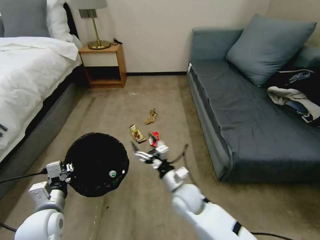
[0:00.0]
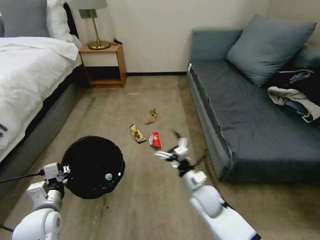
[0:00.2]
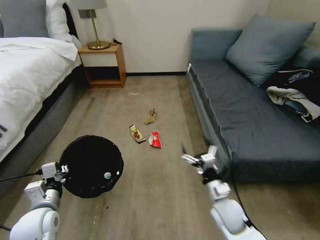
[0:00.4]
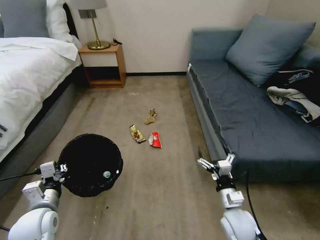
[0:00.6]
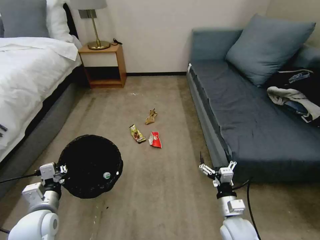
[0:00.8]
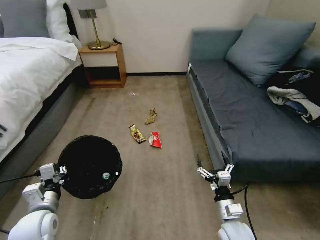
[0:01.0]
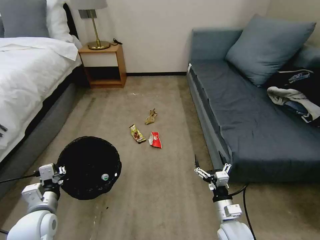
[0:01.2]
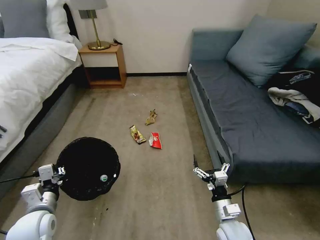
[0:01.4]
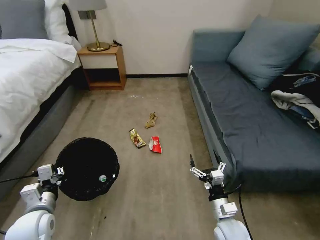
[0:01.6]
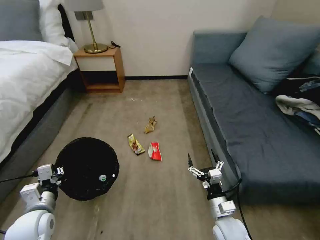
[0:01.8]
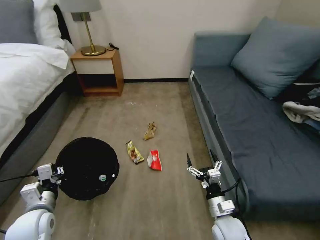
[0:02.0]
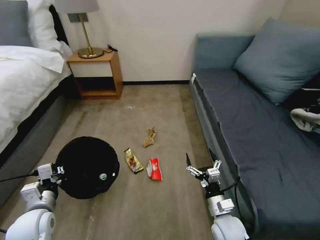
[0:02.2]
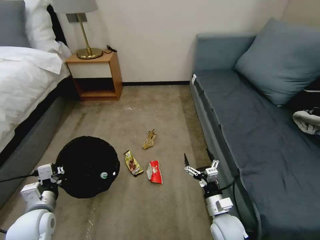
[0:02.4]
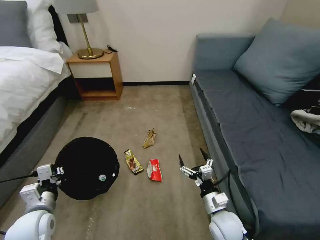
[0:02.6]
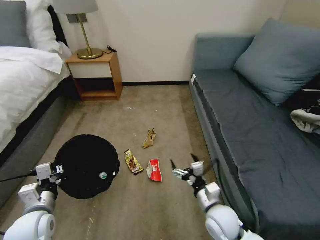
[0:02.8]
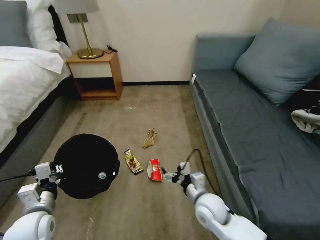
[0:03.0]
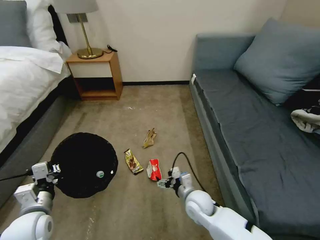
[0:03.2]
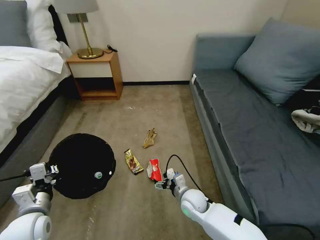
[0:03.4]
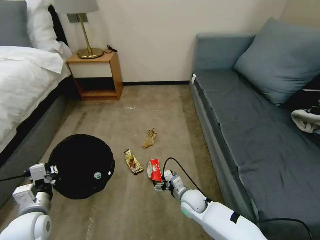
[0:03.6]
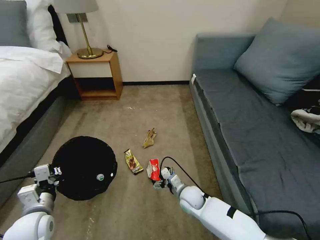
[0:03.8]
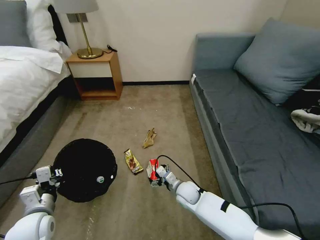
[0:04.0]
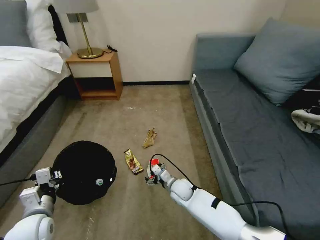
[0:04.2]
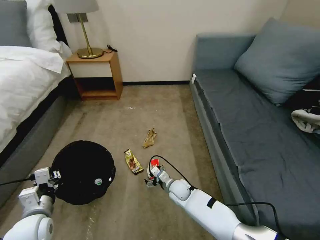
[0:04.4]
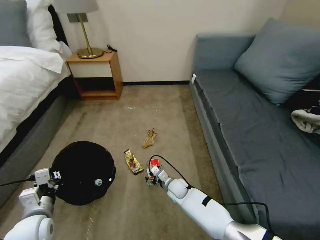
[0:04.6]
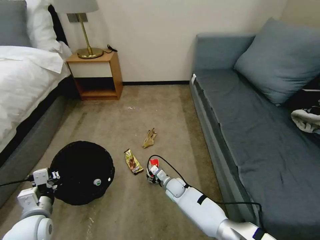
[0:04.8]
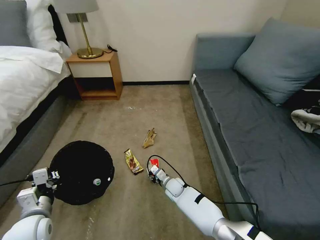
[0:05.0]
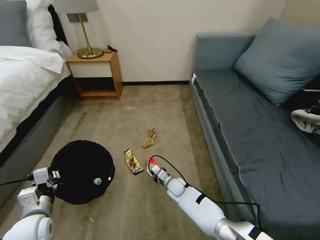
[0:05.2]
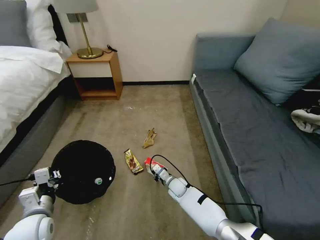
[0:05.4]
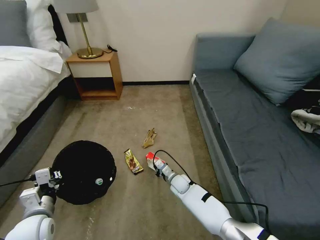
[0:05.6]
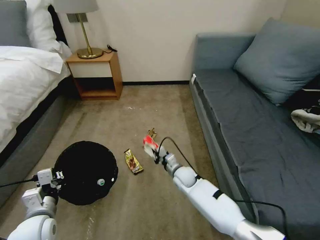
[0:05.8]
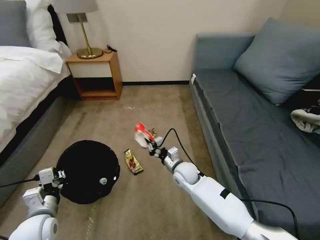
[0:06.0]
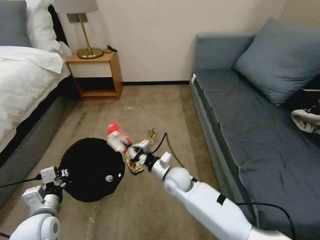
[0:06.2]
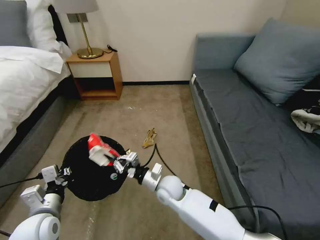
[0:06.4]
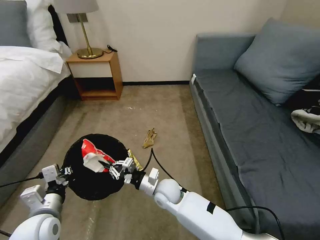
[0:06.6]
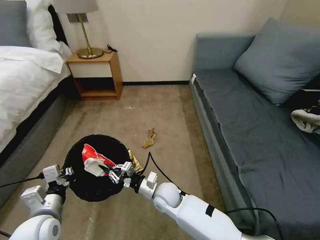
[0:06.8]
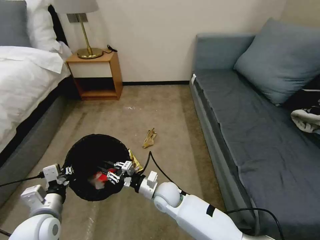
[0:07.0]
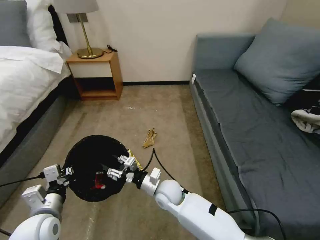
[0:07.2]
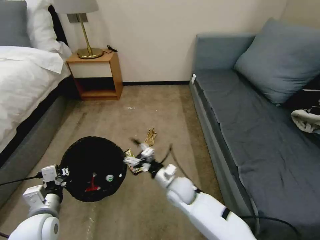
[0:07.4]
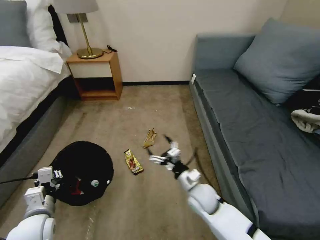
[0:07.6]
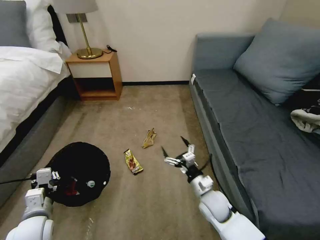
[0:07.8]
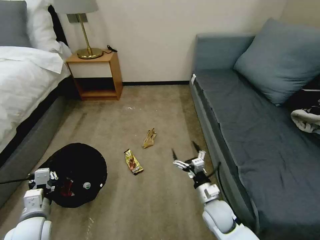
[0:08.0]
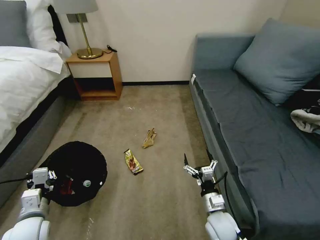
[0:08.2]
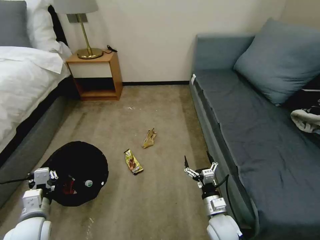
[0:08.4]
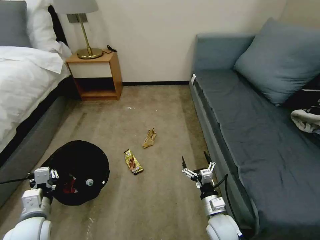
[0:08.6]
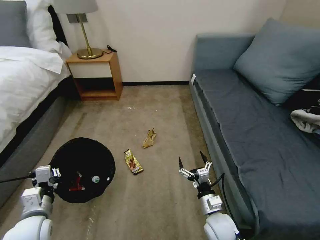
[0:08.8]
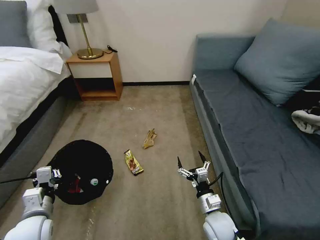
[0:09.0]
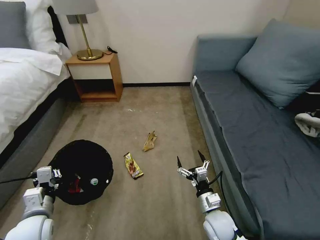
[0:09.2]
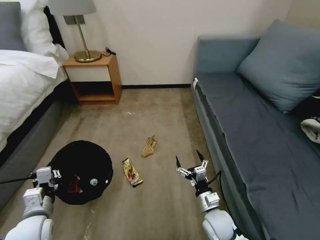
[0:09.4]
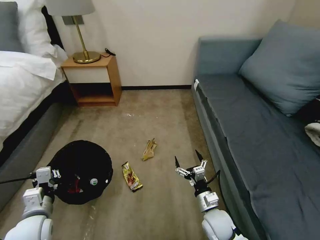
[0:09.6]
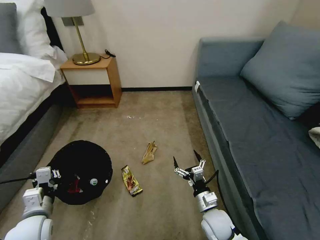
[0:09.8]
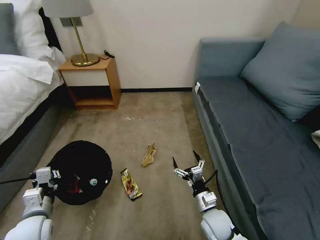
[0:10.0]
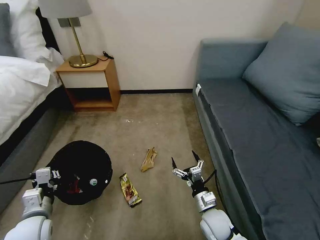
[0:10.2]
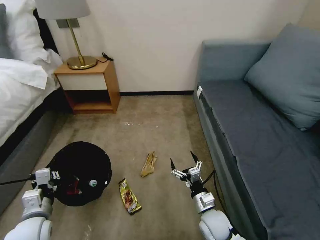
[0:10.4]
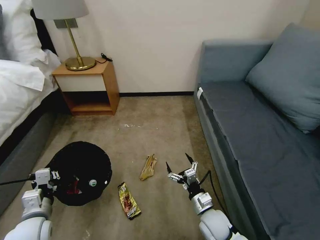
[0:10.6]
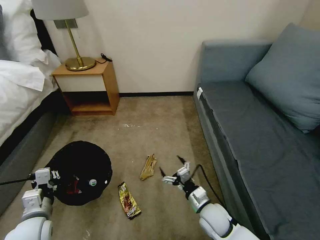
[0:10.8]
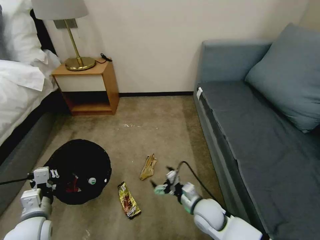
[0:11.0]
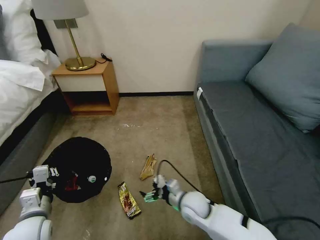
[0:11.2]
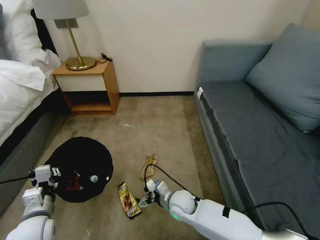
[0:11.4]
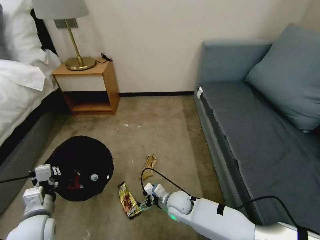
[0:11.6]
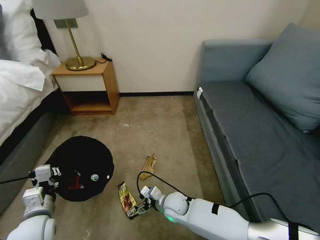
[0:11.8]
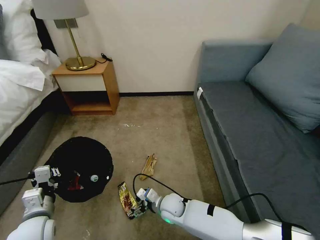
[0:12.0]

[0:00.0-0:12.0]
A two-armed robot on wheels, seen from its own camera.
Task of the whole recording: Pick up the trash bin, then pick up the garbage on the floor and place it into the trash bin.
0:00.0 to 0:01.6: The right gripper is displaced to the right and backward by about 15 cm.
0:01.6 to 0:03.0: The right gripper heads to the left, forward and upward, covering some 10 cm.
0:03.0 to 0:04.4: The right gripper is displaced downward, forward and to the left by roughly 20 cm.
0:04.4 to 0:06.0: The right gripper shifts approximately 10 cm upward, and closes.
0:06.0 to 0:07.6: The right gripper travels backward by roughly 10 cm, goes to the left and returns, roughly 10 cm each way, and opens.
0:07.6 to 0:09.0: The right gripper goes roughly 10 cm backward, to the right and downward.
0:10.4 to 0:12.0: The right gripper travels to the left and forward by approximately 15 cm.

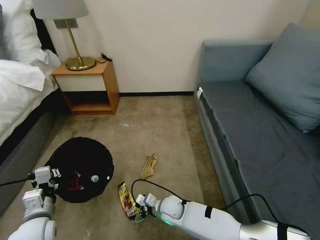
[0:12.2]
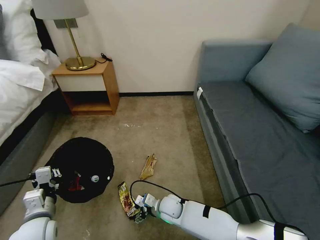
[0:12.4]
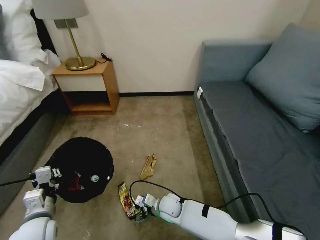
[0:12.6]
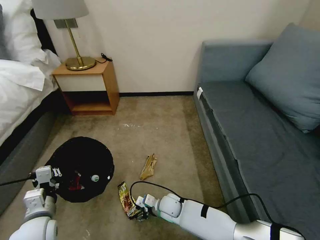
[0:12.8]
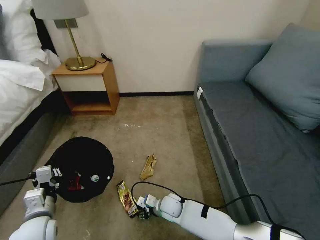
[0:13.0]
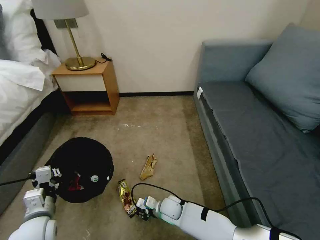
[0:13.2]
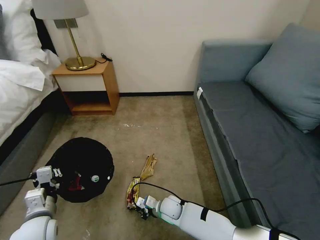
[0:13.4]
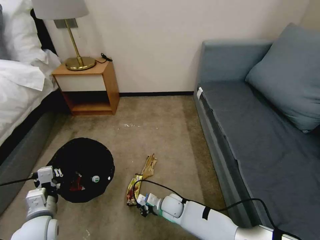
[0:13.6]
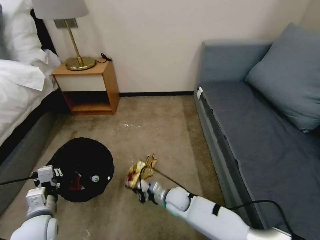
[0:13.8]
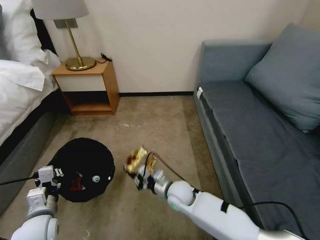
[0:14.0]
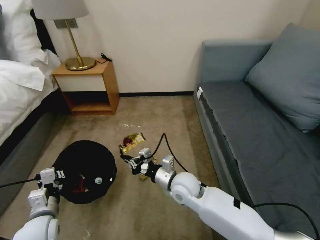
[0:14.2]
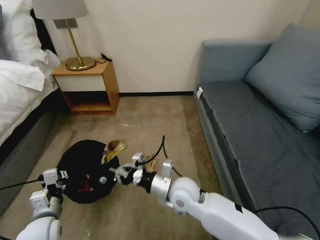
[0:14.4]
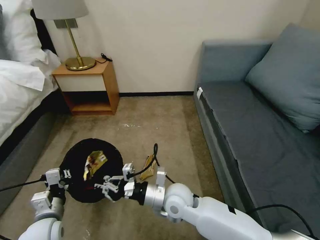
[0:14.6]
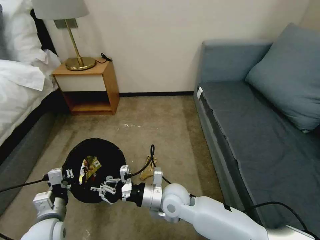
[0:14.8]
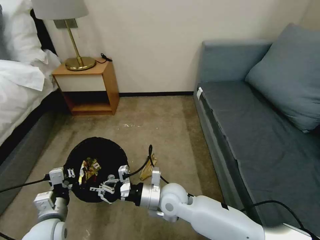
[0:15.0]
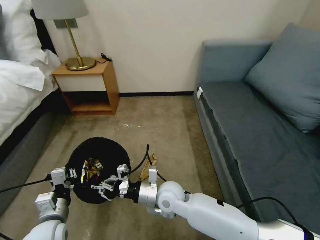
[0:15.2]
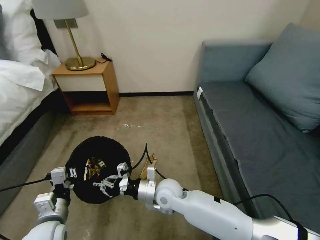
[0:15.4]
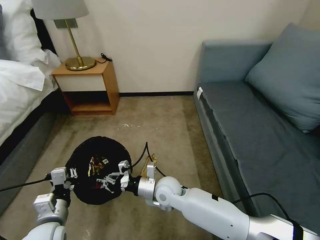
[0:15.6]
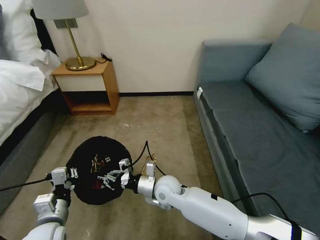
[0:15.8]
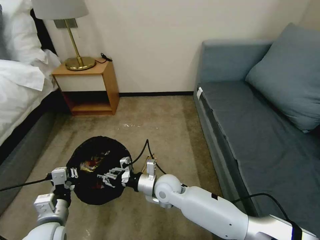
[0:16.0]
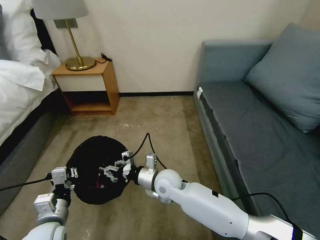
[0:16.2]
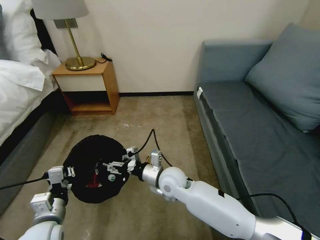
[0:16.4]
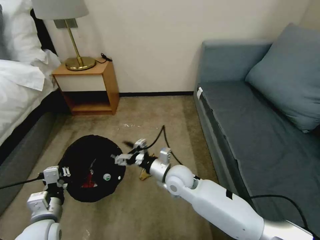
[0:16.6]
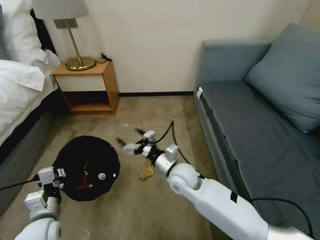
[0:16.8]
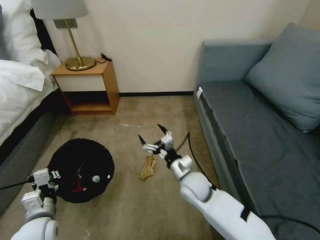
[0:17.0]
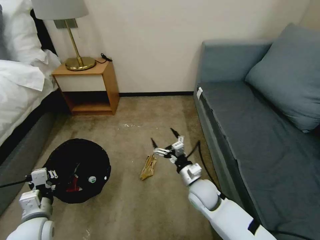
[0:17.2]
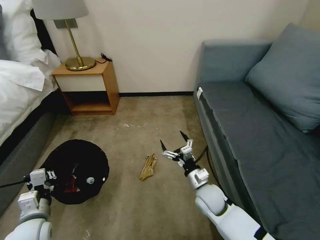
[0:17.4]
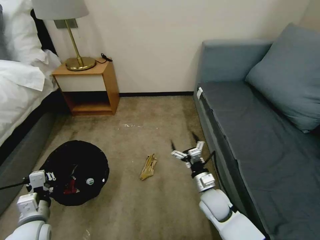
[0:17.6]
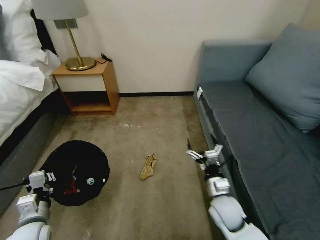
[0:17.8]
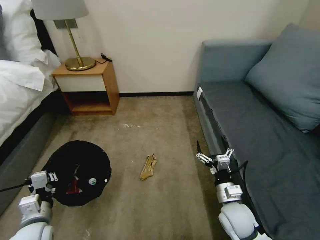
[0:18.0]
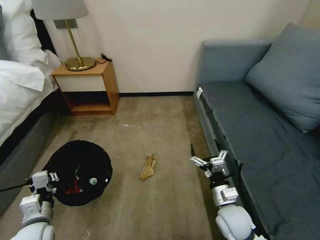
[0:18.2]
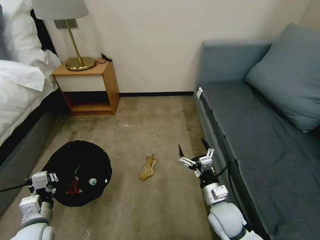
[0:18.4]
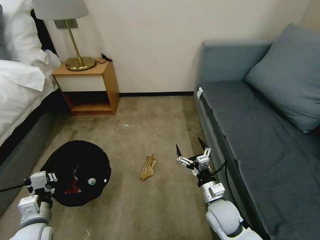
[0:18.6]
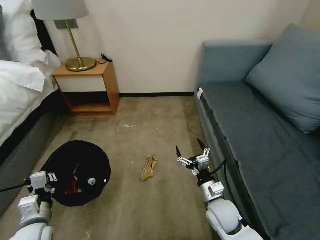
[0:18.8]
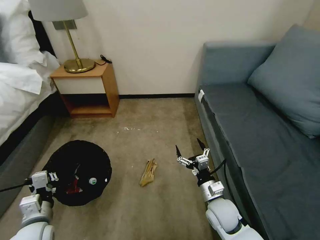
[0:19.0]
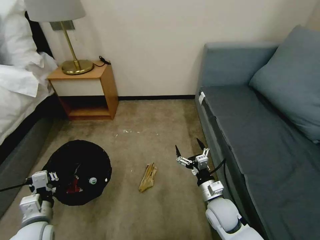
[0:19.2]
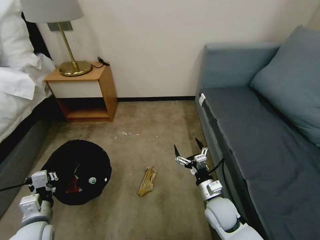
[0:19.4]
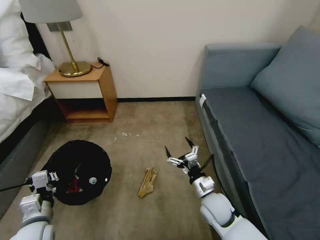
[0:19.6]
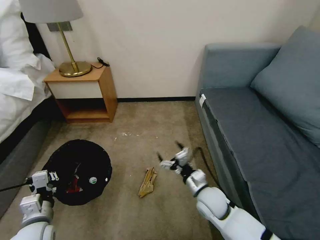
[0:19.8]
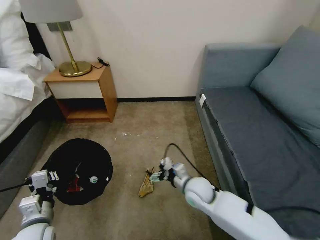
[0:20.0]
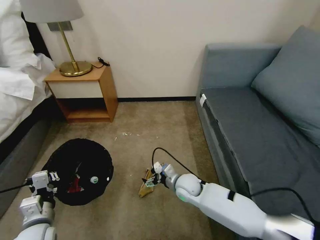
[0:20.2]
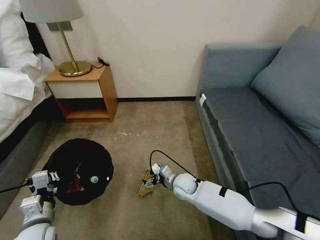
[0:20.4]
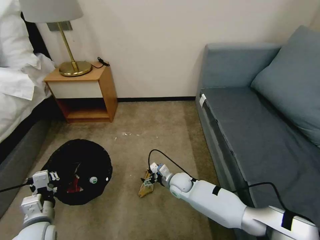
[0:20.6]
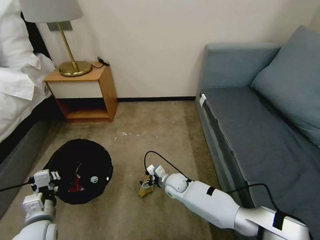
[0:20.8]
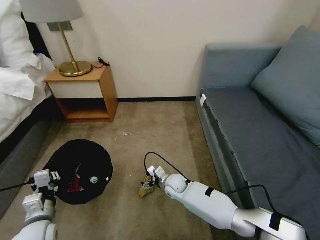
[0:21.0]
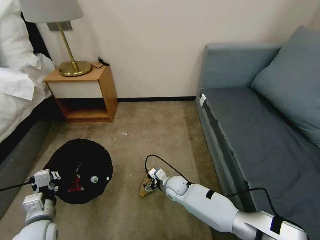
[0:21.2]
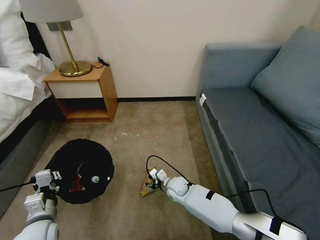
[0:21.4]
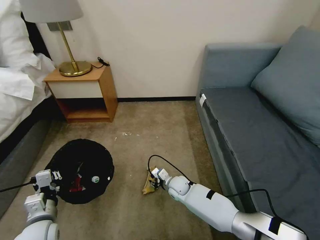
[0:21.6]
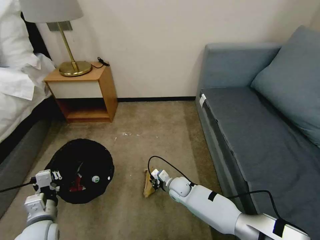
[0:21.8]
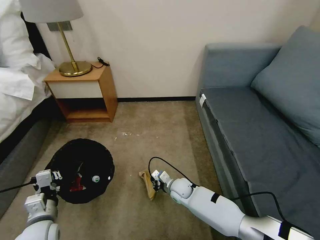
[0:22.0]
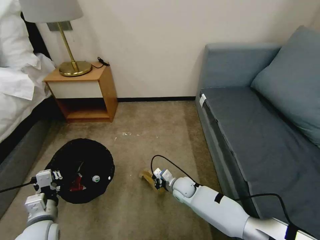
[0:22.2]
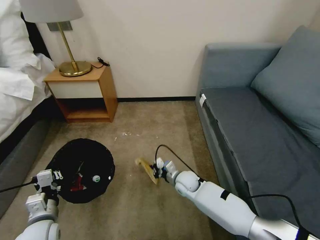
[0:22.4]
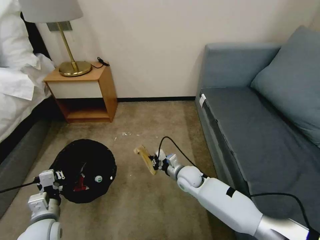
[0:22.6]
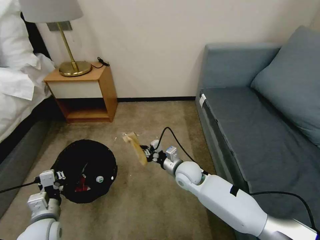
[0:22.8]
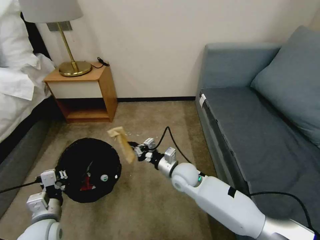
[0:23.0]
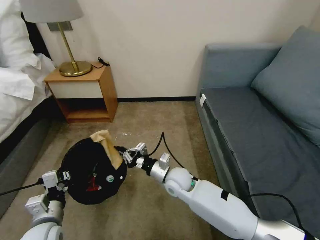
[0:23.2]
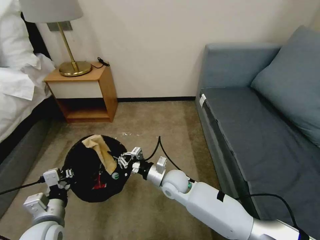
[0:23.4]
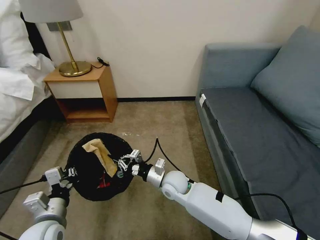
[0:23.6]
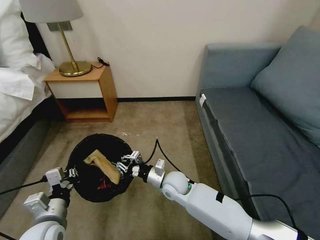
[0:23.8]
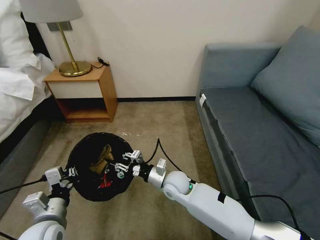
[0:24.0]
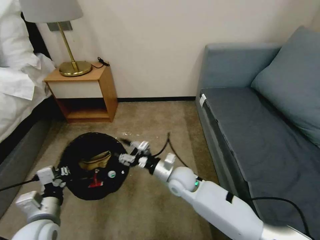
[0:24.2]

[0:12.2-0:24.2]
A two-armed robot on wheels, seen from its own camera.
Task of the whole recording: Pick up the trash bin, then pick up the garbage on the floor and place it into the trash bin.
0:12.2 to 0:13.8: The right gripper closes up.
0:13.8 to 0:15.2: The right gripper travels upward by some 15 cm.
0:15.2 to 0:16.6: The right gripper shifts by roughly 5 cm, and opens up.
0:16.6 to 0:18.2: The right gripper heads to the right and backward, covering some 20 cm.
0:18.2 to 0:19.8: The right gripper is displaced to the left and forward by roughly 10 cm.
0:19.8 to 0:21.2: The right gripper moves downward, to the left and forward, roughly 20 cm.
0:21.2 to 0:22.6: The right gripper is displaced upward by about 10 cm, and closes up.
0:22.6 to 0:24.2: The grippers both shift upward by roughly 5 cm. The right gripper opens up.
